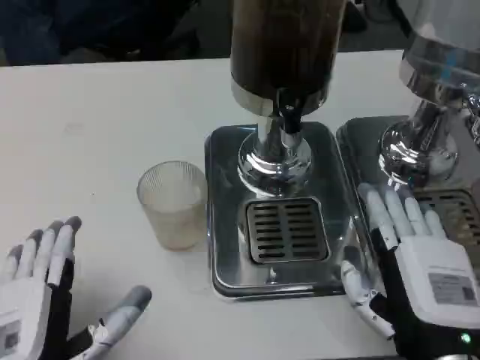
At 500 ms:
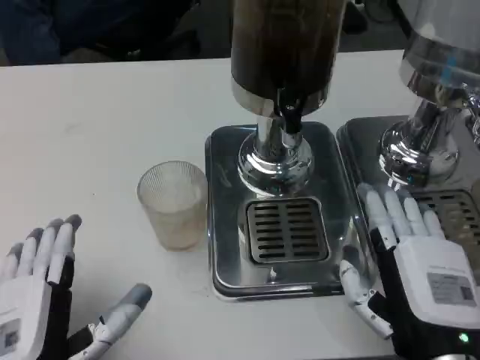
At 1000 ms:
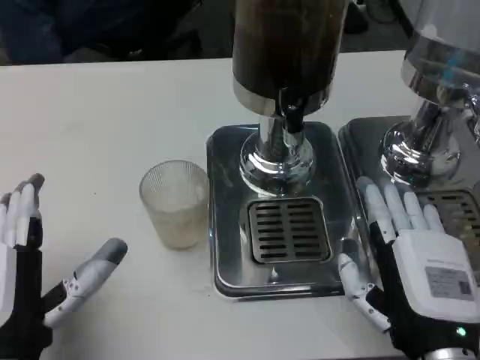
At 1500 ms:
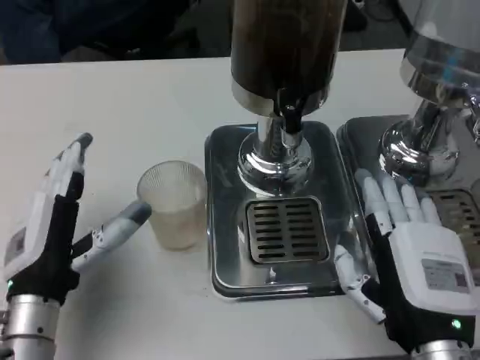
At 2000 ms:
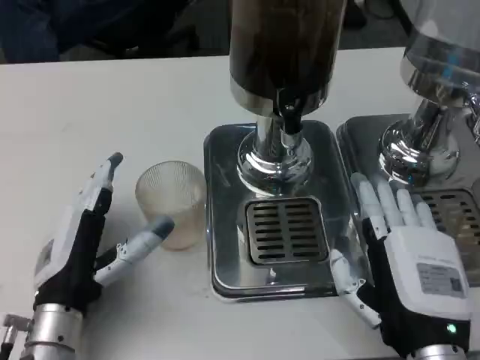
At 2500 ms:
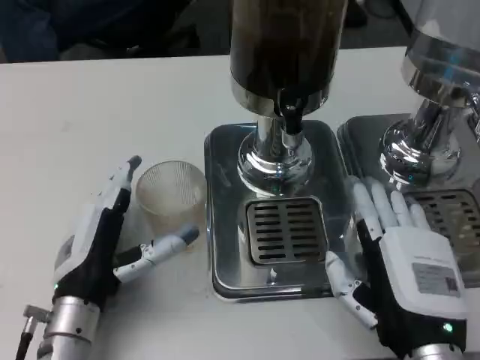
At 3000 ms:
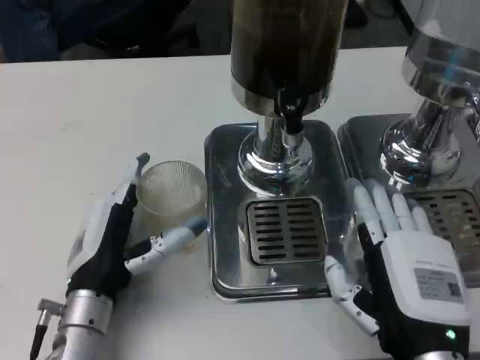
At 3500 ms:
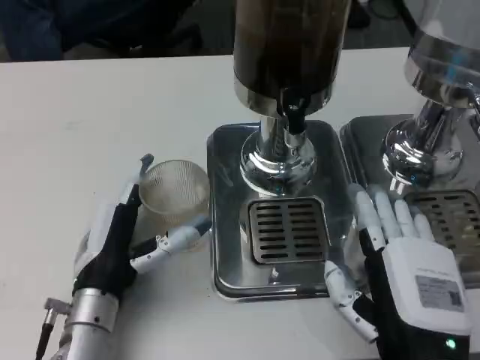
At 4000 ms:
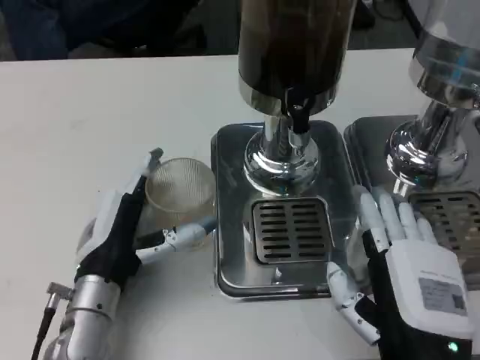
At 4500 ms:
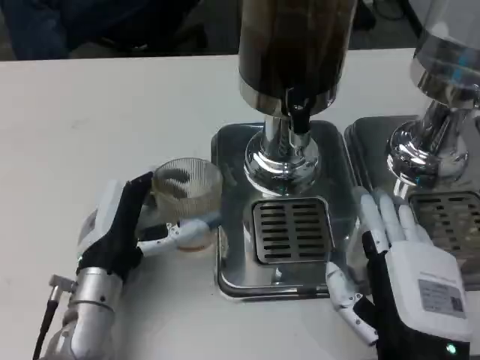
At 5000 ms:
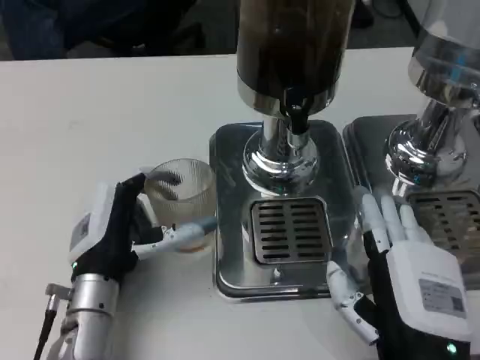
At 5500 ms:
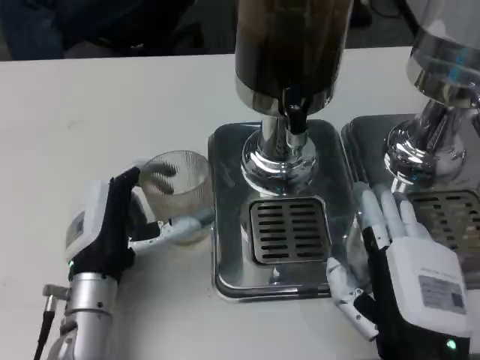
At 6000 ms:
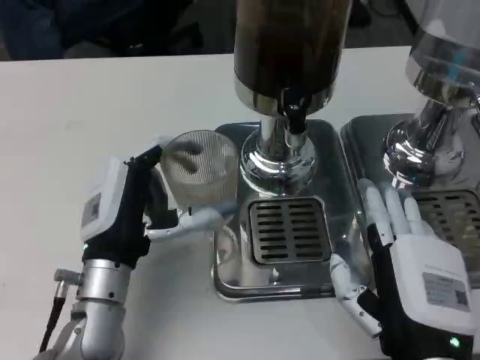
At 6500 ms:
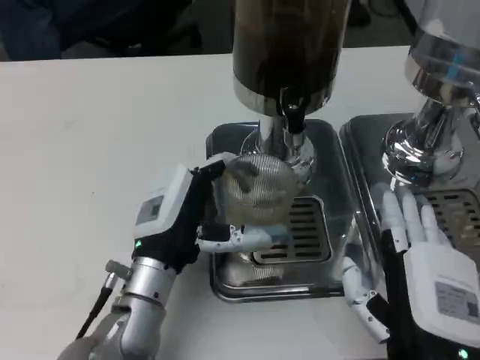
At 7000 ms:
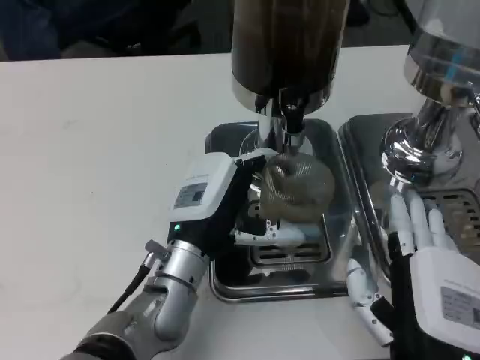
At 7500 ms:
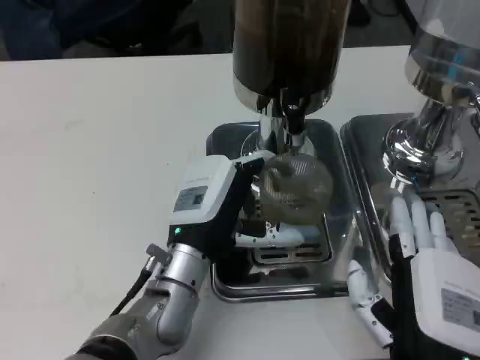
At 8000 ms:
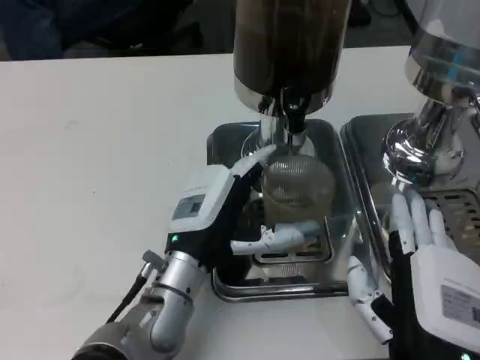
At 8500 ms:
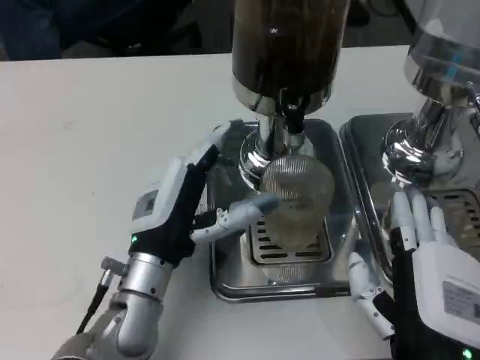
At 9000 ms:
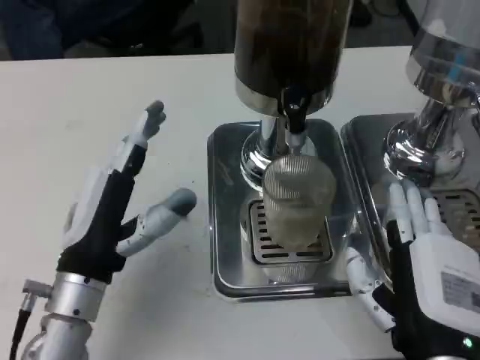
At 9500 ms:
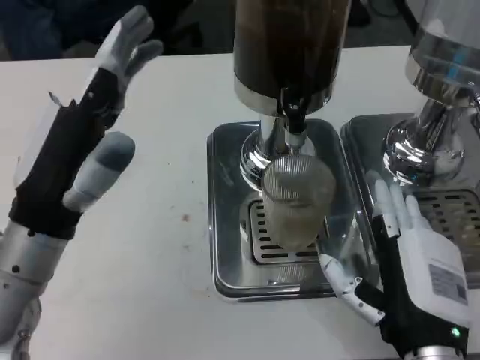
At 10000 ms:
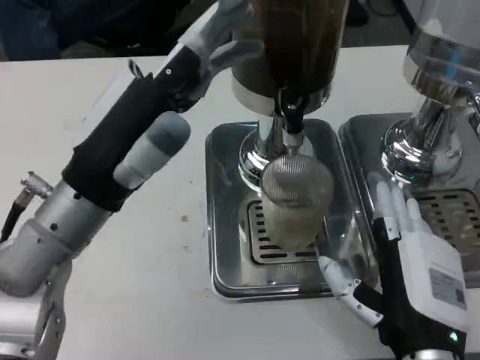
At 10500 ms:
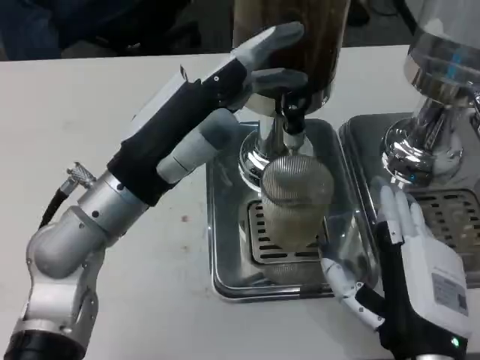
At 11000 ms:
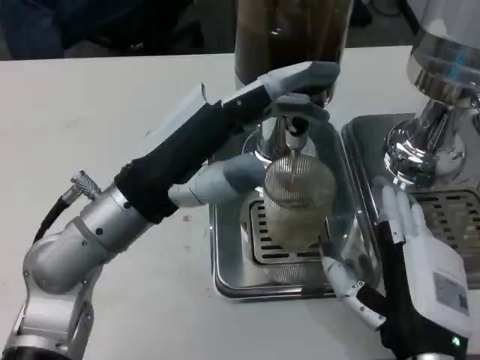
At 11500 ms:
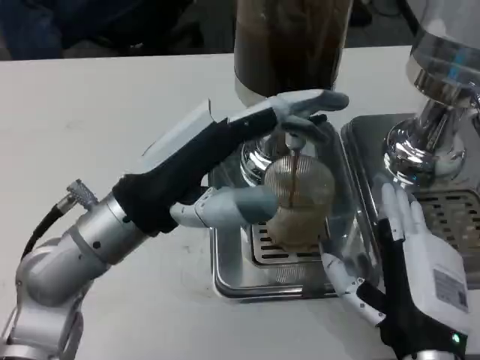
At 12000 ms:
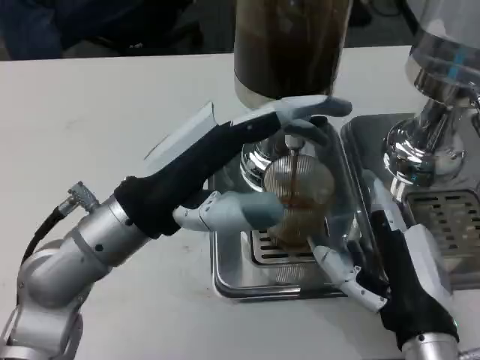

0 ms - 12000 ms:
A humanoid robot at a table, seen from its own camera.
Task of the whole recording: Grasp the cup under the faucet to collect the drink, then remove the cup.
0 ms - 2000 ms: The left hand travels forward by some 10 cm.
6000 ms - 8000 ms: The left hand heads to the right, covering roughly 5 cm.
8000 ms - 10000 ms: The left hand moves upward and to the left, roughly 15 cm.

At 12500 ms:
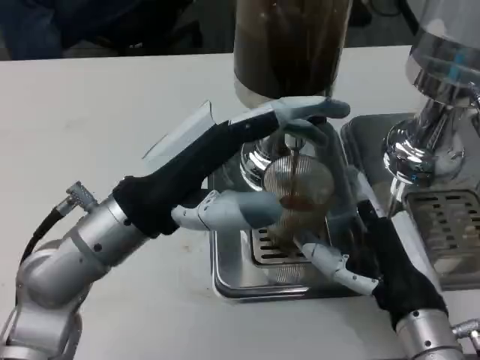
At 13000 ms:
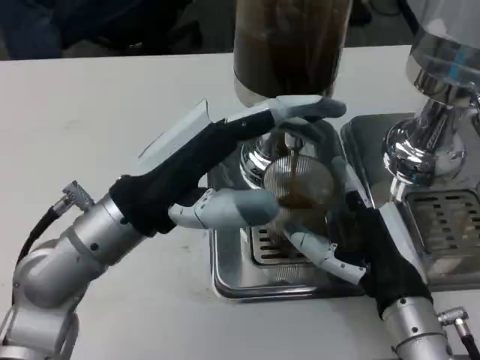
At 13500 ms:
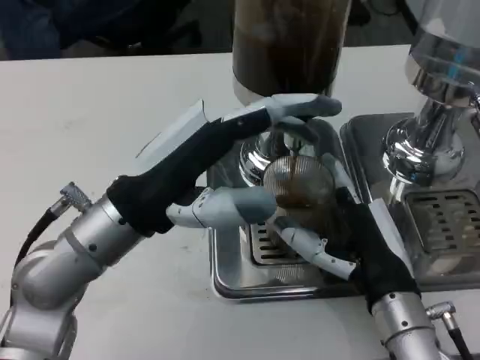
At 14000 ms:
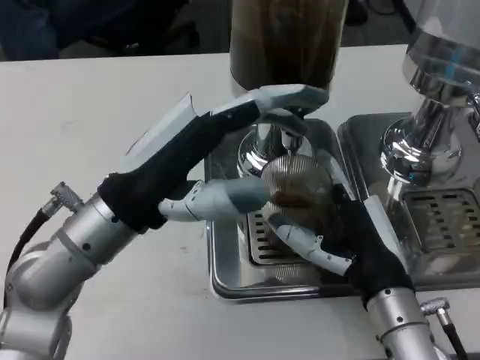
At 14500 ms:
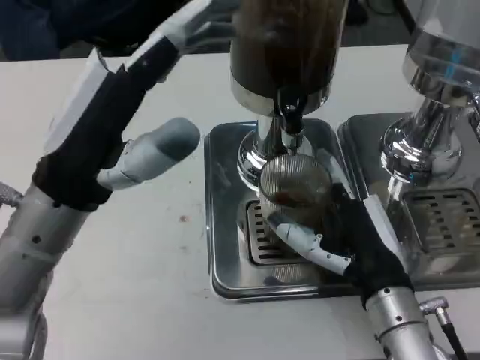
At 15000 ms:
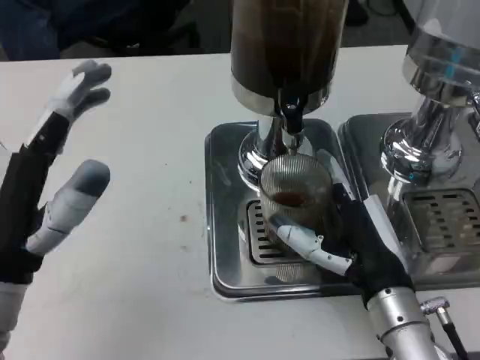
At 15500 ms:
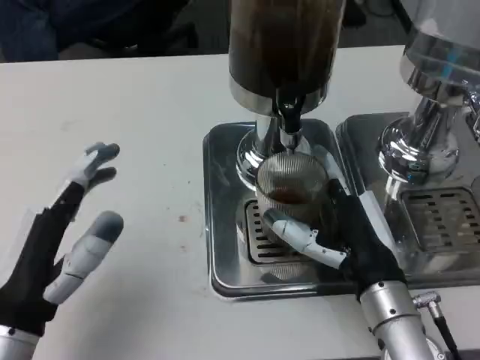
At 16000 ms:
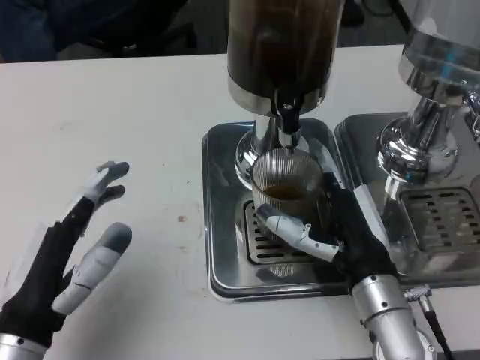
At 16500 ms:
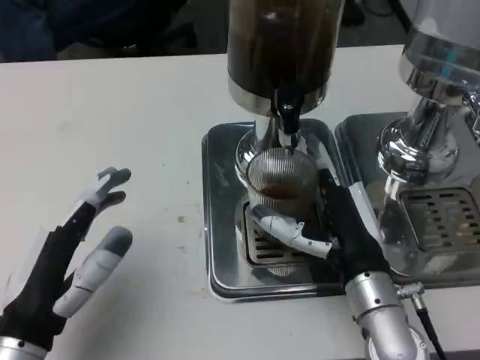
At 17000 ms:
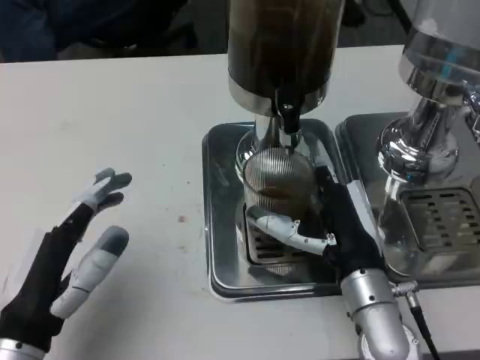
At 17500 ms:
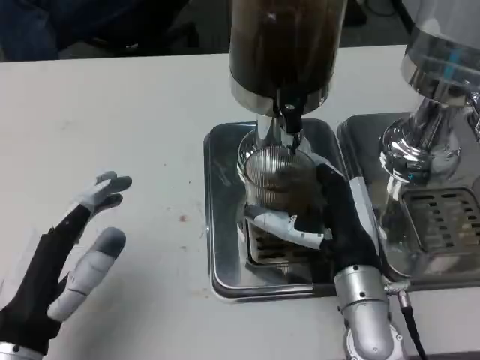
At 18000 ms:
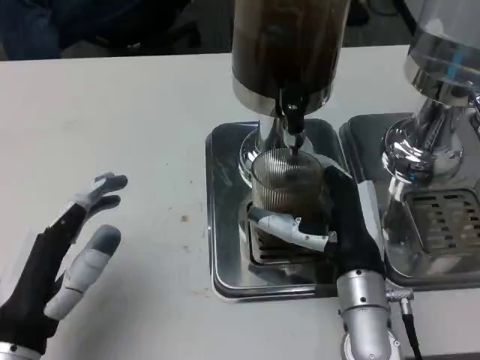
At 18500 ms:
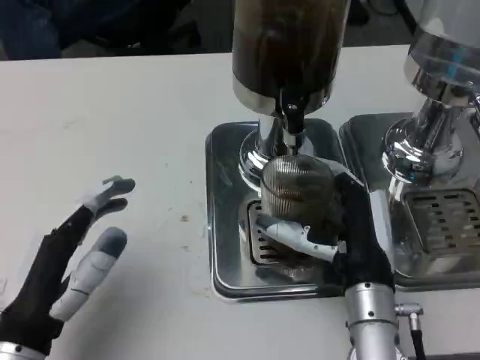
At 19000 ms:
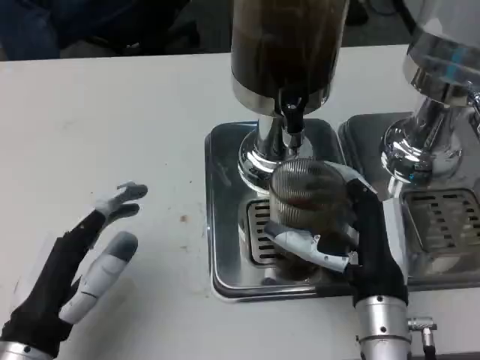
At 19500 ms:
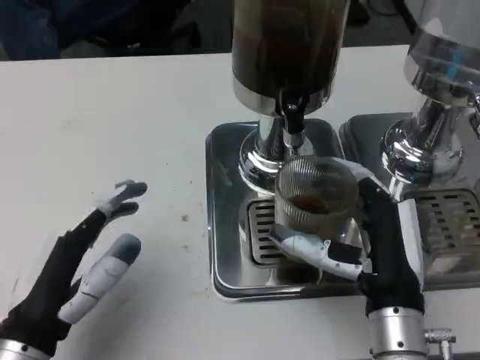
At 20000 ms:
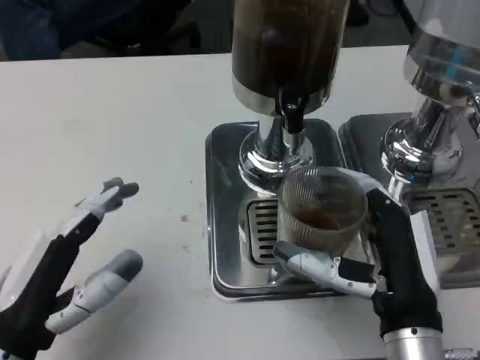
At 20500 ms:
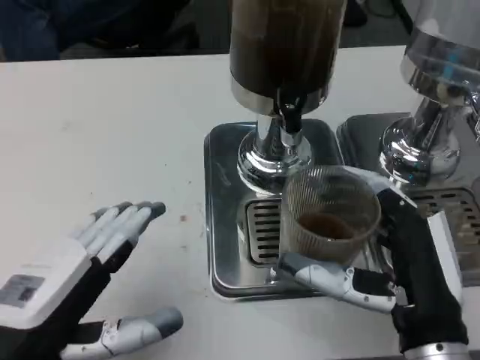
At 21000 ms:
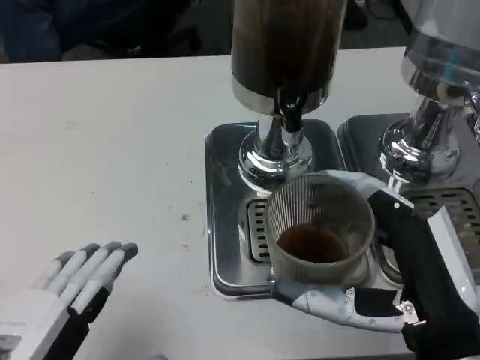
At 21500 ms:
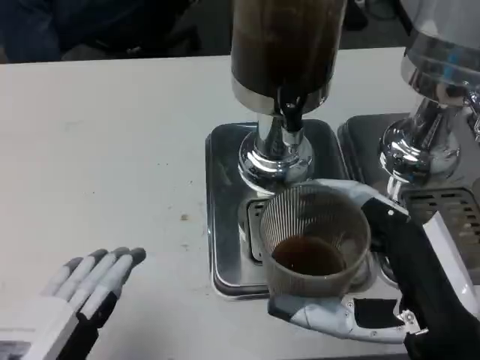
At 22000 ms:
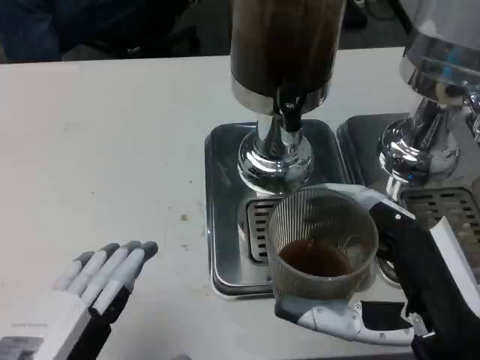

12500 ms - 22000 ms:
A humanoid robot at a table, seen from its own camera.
Task of the whole recording: Grasp the cup under the faucet to collect the drink, then remove the cup.
14500 ms - 16500 ms: The left hand shifts roughly 15 cm downward and backward.
16500 ms - 18000 ms: The hands move only a little.
18000 ms - 20000 ms: The right hand moves backward, approximately 5 cm.
20000 ms - 22000 ms: The hands both shift backward by approximately 5 cm.

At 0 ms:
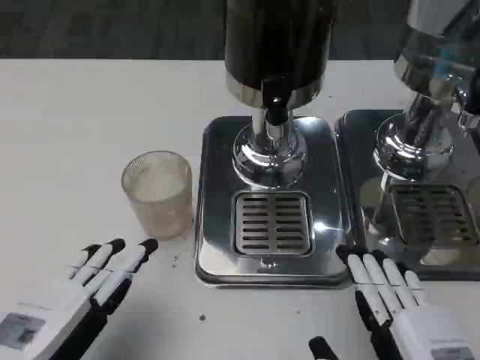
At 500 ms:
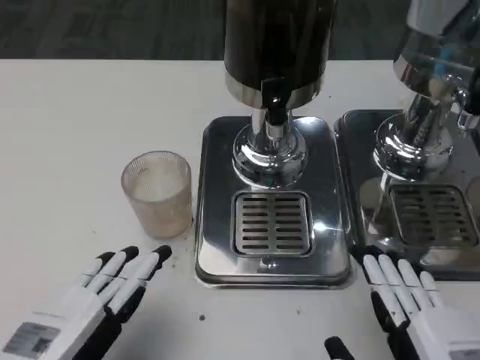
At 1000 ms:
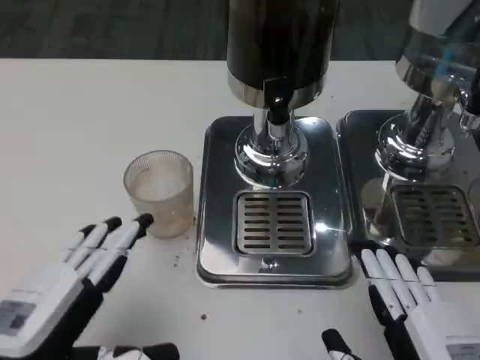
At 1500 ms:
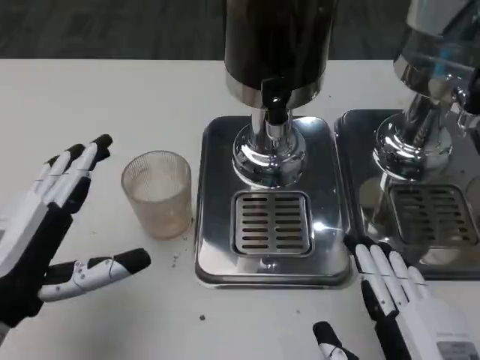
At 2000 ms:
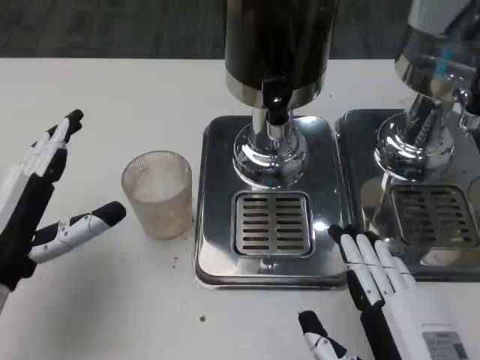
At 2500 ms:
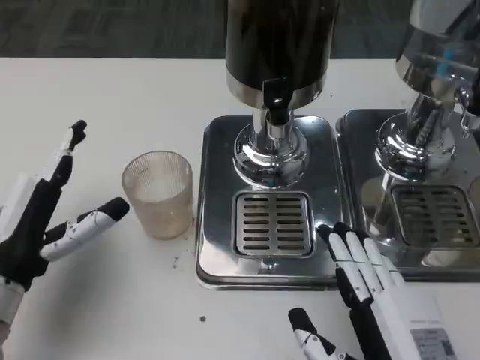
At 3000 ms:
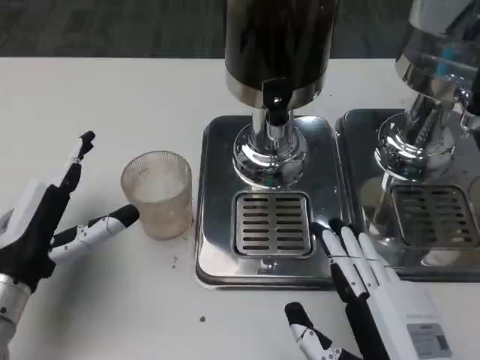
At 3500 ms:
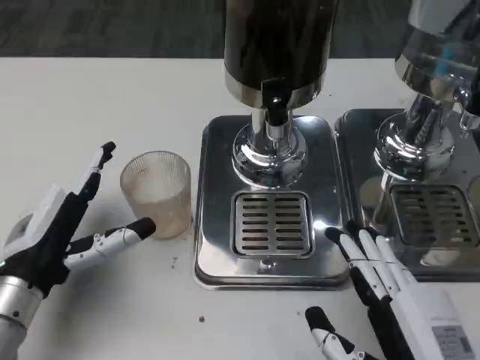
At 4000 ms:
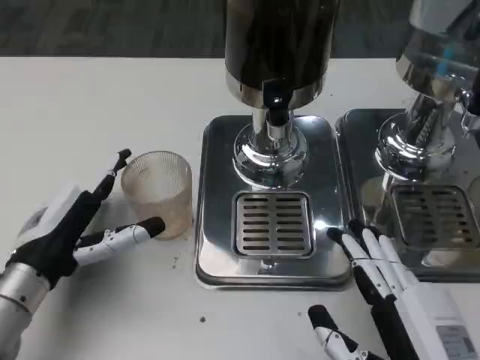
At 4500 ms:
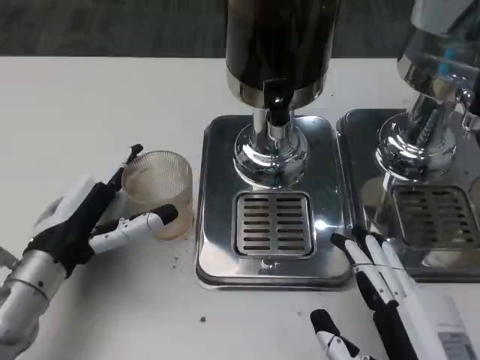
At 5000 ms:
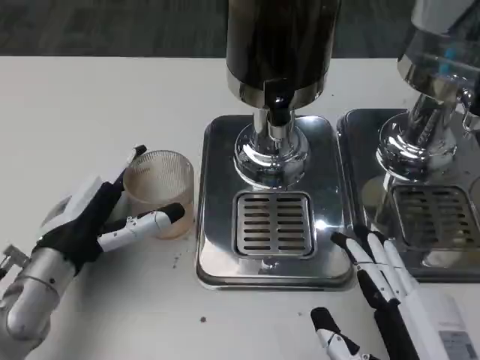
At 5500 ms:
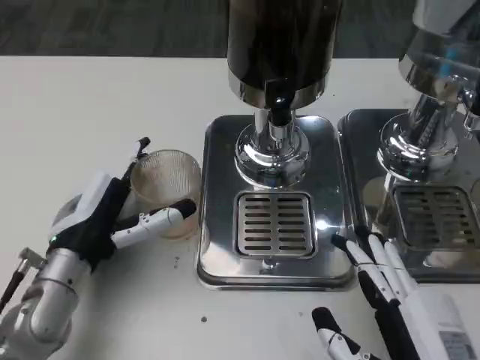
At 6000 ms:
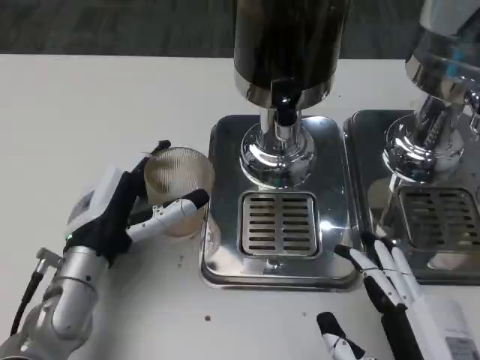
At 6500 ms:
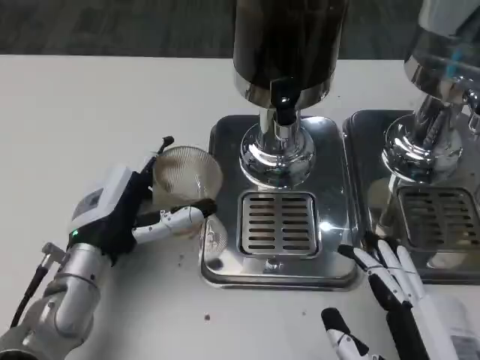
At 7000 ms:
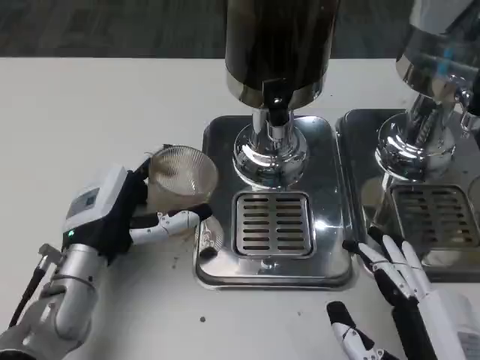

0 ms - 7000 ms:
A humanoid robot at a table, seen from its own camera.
Task of the whole recording: Grasp the cup under the faucet to collect the drink, then remove the cup.
0 ms - 2000 ms: The left hand goes approximately 10 cm forward.
2000 ms - 3500 ms: The hands move only a little.
3500 ms - 5000 ms: The hands stay close to where they were, moving slightly.
